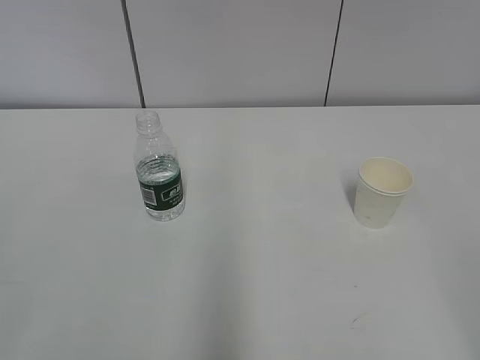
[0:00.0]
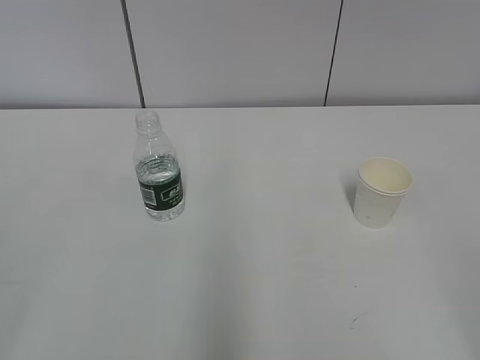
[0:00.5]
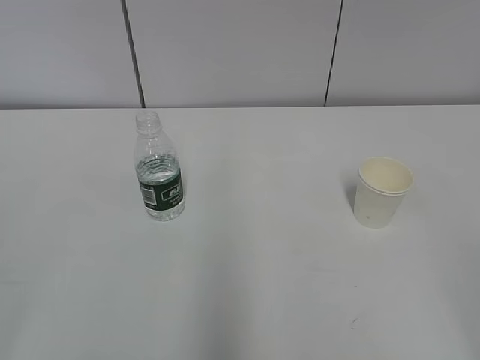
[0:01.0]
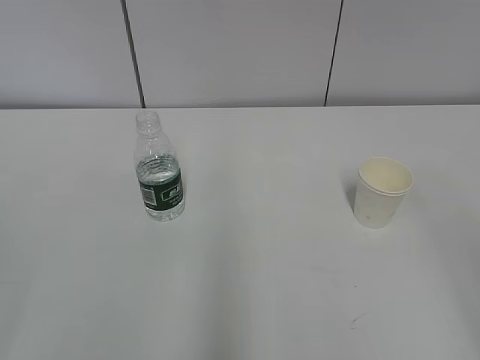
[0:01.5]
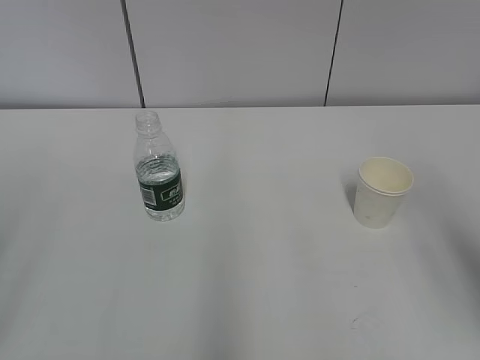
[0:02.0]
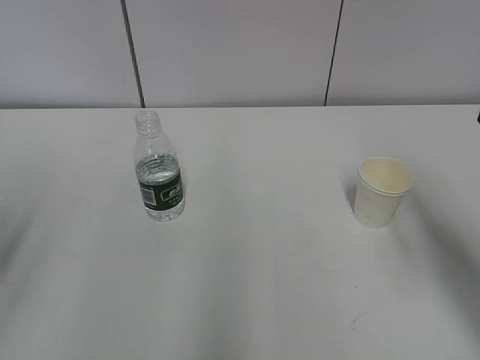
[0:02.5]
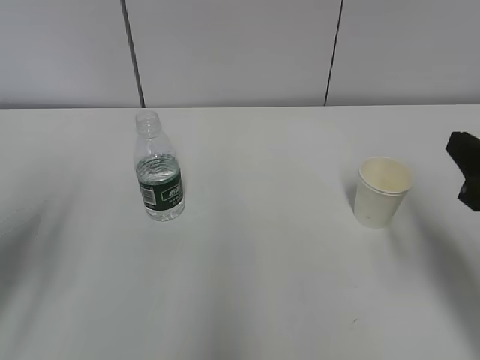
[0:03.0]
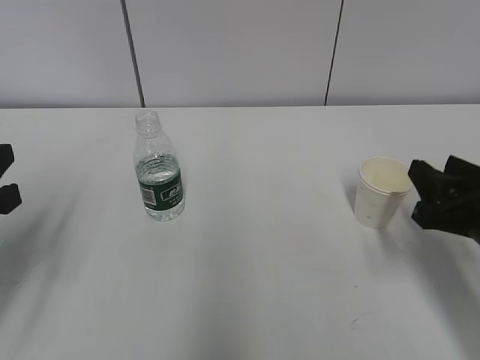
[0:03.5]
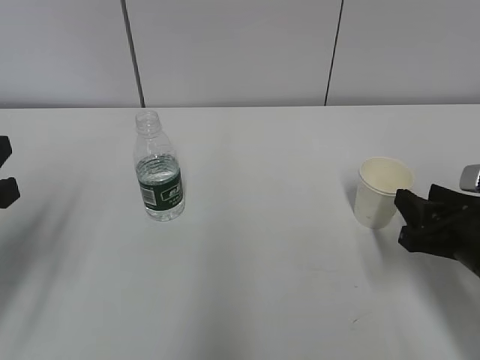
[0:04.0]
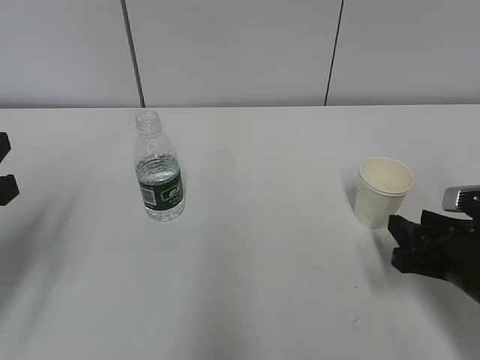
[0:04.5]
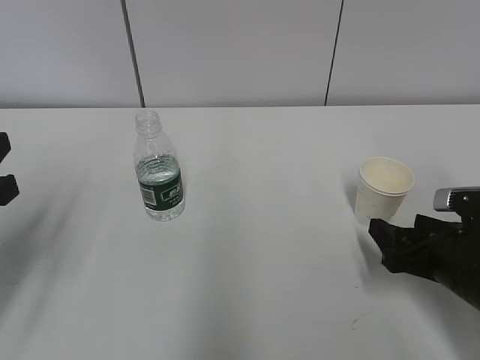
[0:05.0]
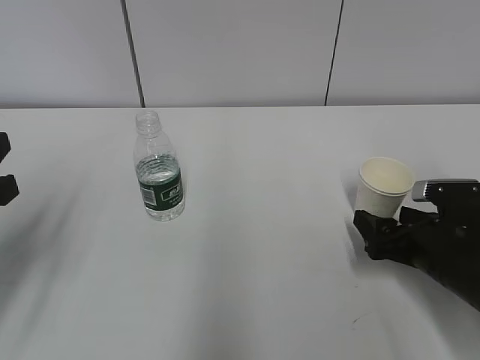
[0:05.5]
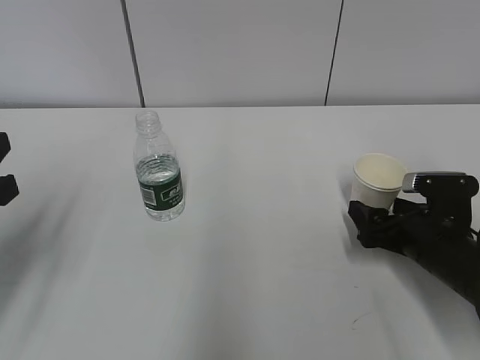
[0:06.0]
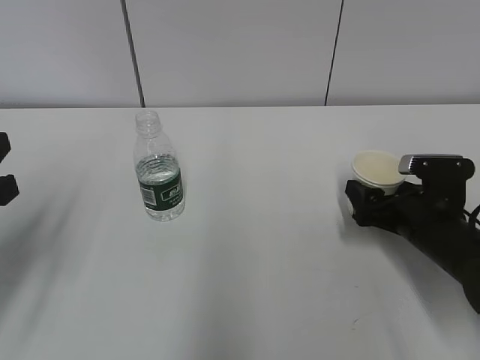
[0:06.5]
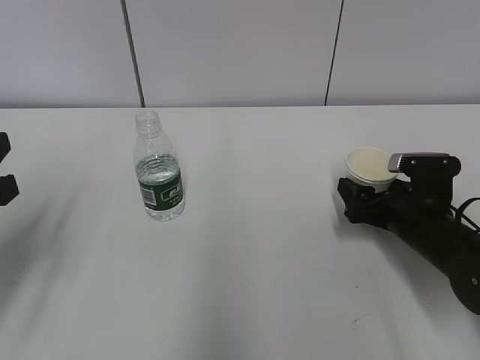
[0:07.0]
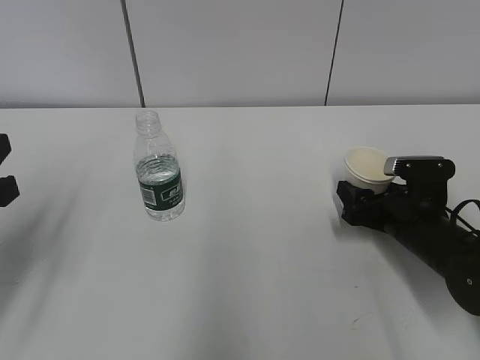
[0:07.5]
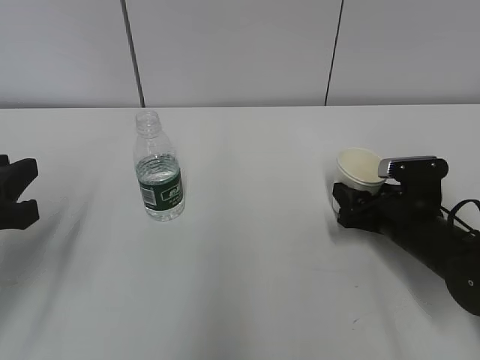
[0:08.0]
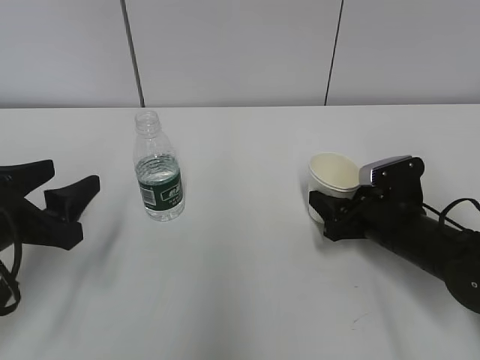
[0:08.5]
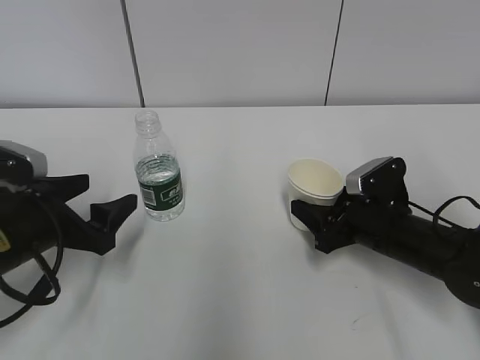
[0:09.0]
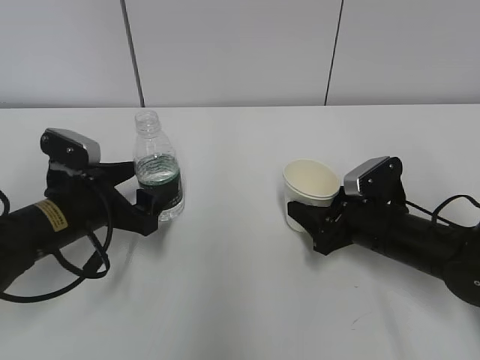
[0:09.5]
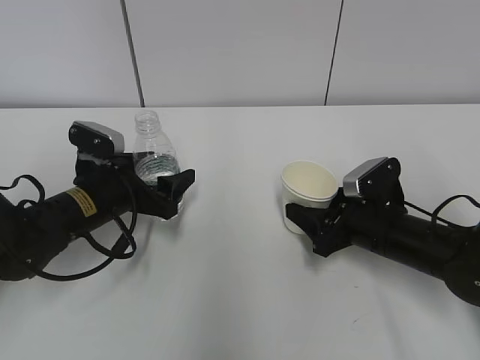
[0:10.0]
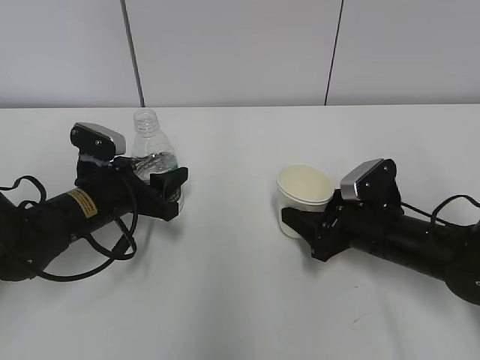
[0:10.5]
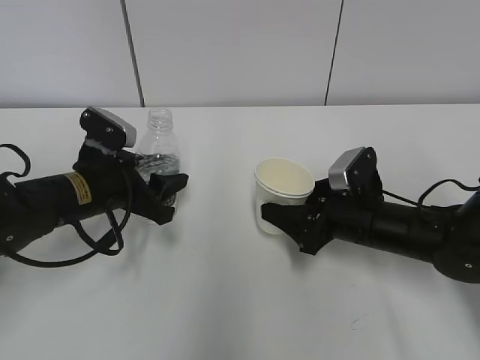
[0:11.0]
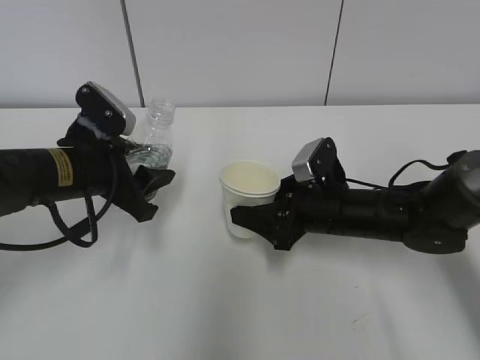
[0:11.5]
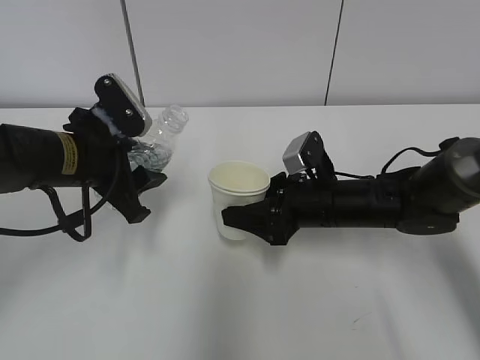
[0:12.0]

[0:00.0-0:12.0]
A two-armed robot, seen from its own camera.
Step, 0:00.0 to 0:08.5: Grab the paper cup with the right hand.
0:02.0 to 0:04.0: The right gripper is displaced downward and forward by about 25 cm. Meanwhile the left gripper heads forward and downward, covering roughly 20 cm.
0:04.0 to 0:06.0: The right gripper moves downward and forward, some 10 cm, and opens.
0:06.0 to 0:08.0: The right gripper closes.
0:08.0 to 0:10.0: The left gripper shifts about 20 cm forward, downward and to the right, and opens up.
0:10.0 to 0:12.0: The right gripper is displaced to the left by roughly 5 cm. Meanwhile the left gripper heads upward, covering approximately 10 cm, and closes.

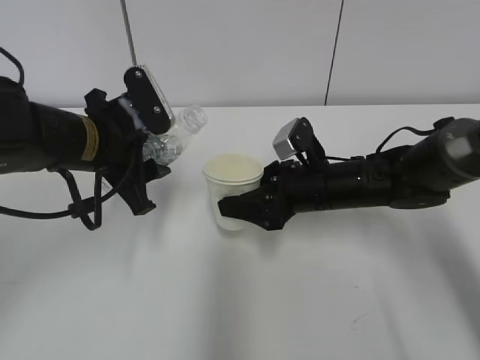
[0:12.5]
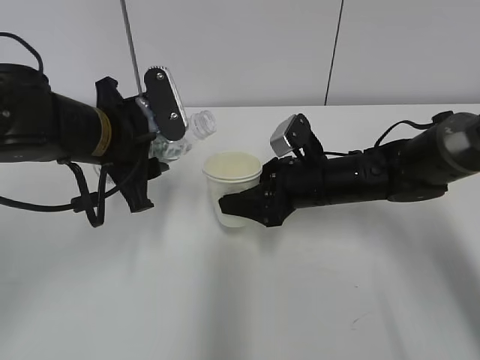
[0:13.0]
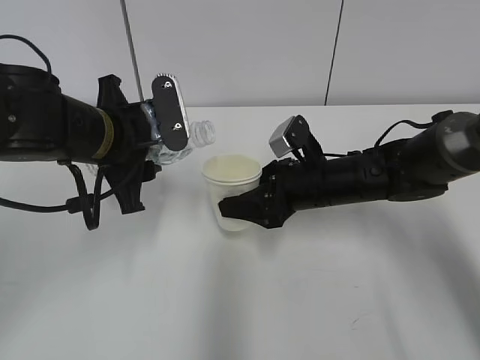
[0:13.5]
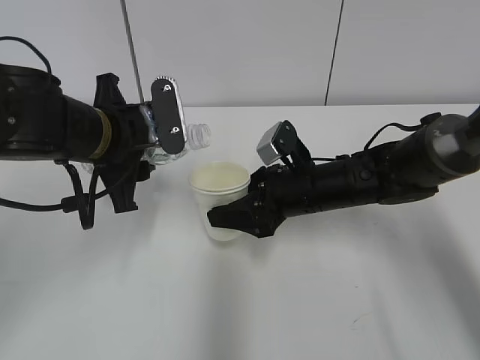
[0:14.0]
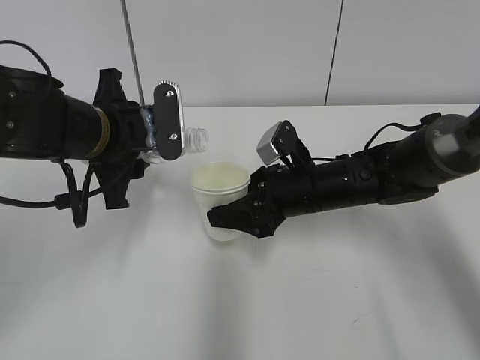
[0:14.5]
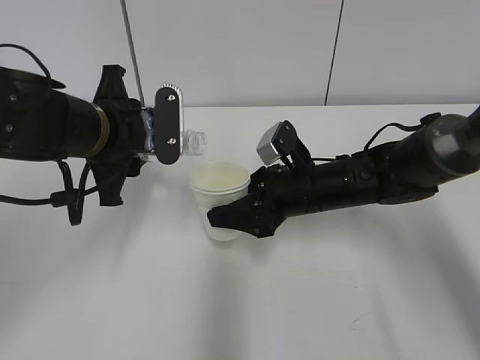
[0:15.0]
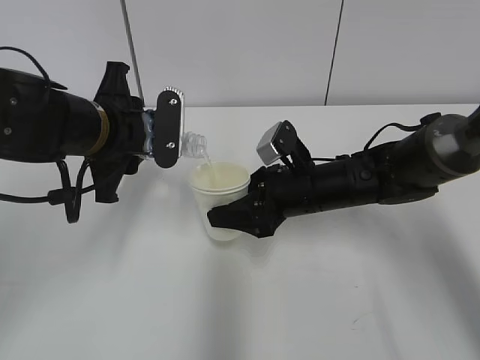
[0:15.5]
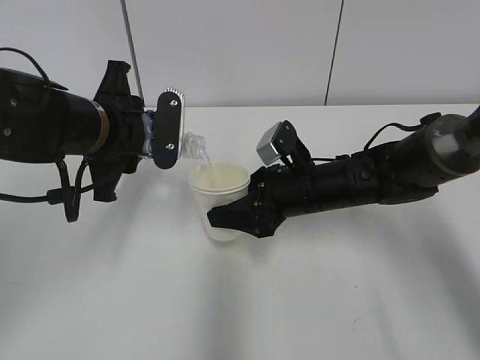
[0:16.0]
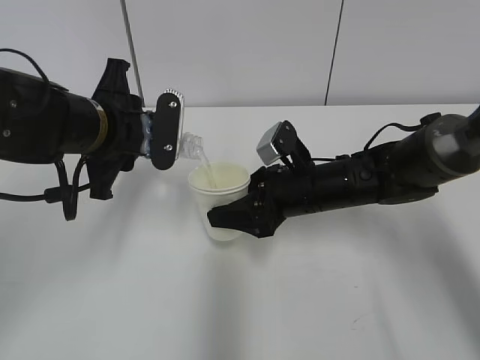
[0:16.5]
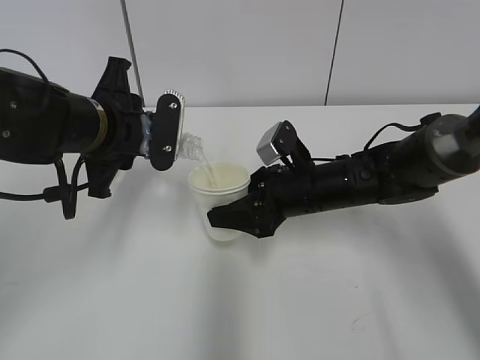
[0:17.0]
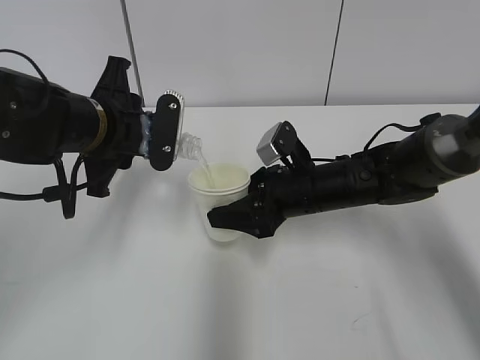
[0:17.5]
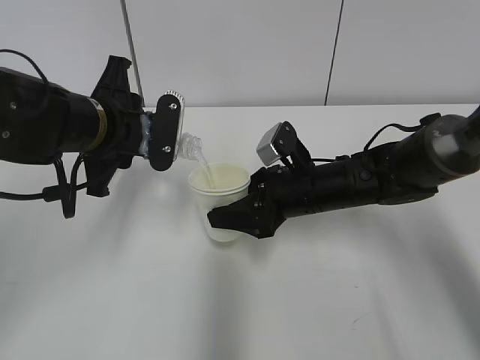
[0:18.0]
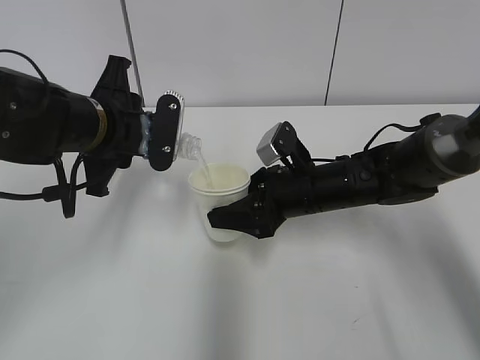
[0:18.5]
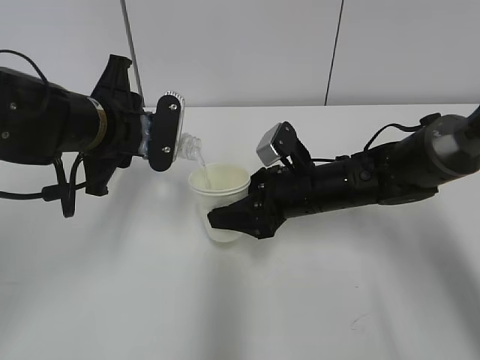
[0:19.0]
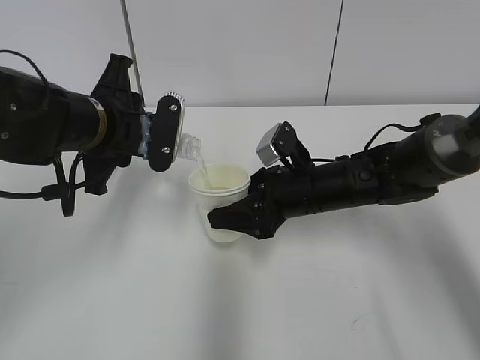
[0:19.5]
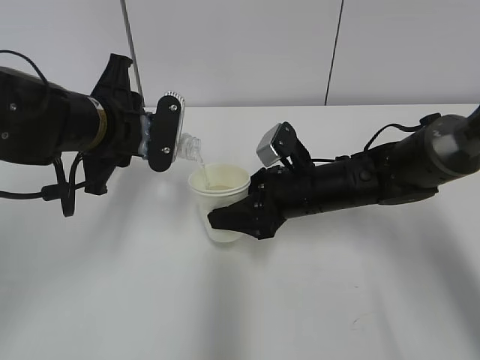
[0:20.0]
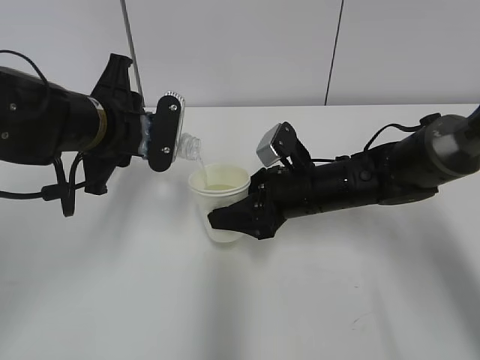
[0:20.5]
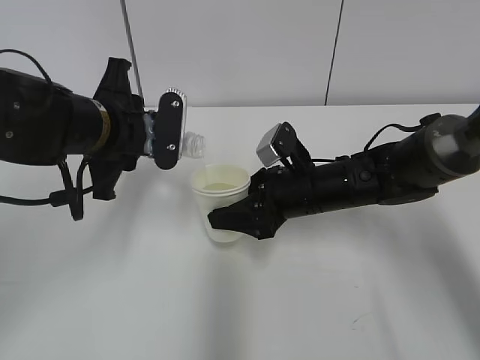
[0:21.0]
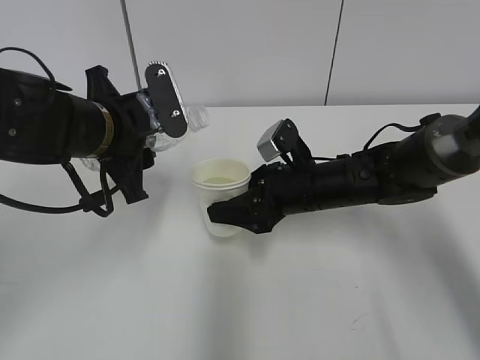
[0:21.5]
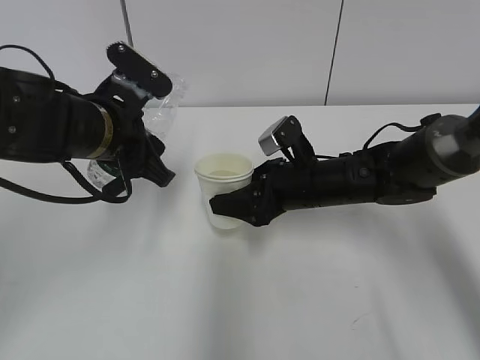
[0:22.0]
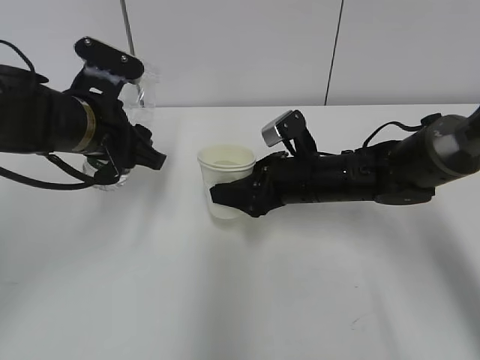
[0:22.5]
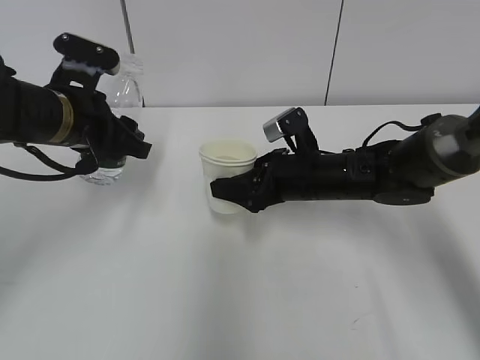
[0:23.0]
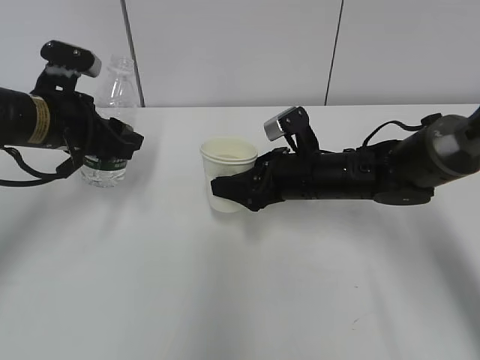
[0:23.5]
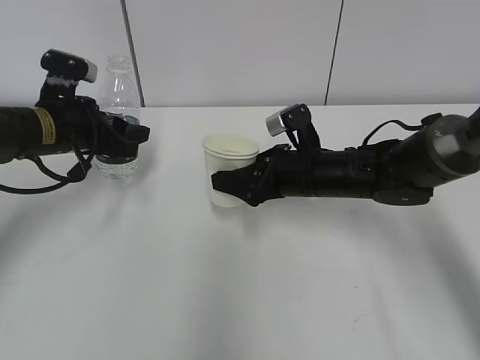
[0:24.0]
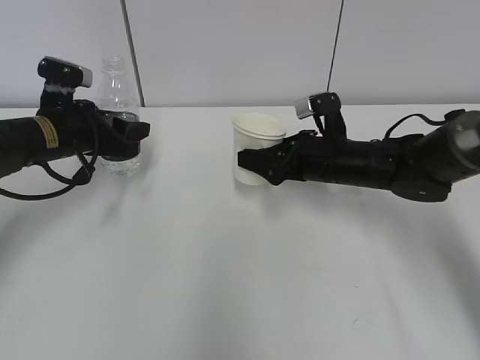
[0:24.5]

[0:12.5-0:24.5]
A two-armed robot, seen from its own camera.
Step, 0:13.0 to 0:17.5: Fill water with the right hand.
Step, 0:13.0 to 0:17.5: Pour water with the left hand.
0:14.5 to 0:16.5: There are only small adjustments of the grippers.
0:16.5 to 0:20.5: Neither gripper changes place.
0:22.5 to 0:24.5: The left gripper moves to the left, downward and forward, some 10 cm.

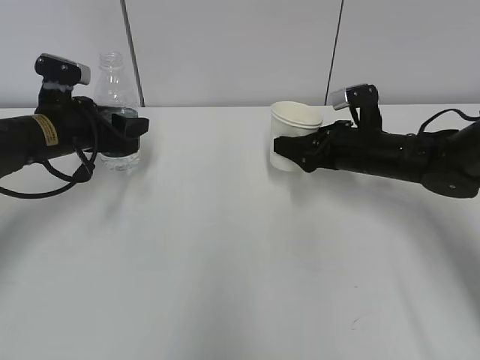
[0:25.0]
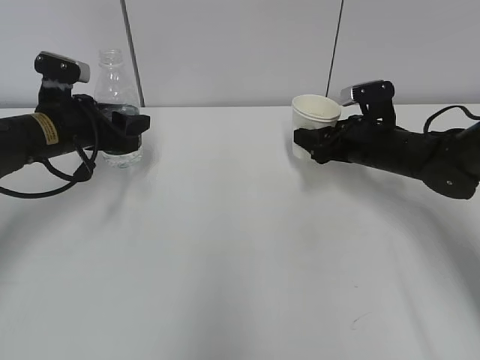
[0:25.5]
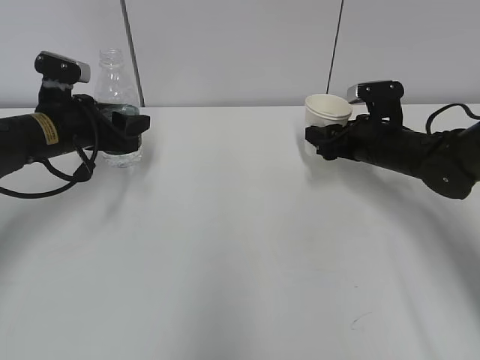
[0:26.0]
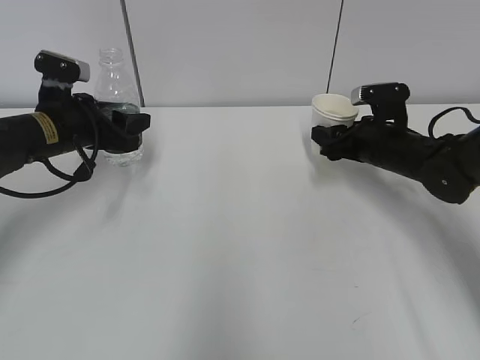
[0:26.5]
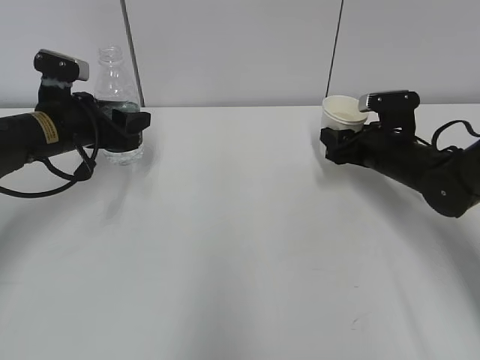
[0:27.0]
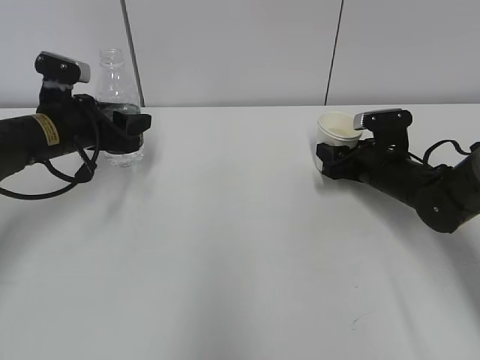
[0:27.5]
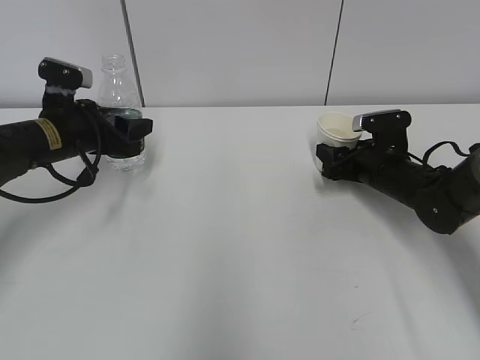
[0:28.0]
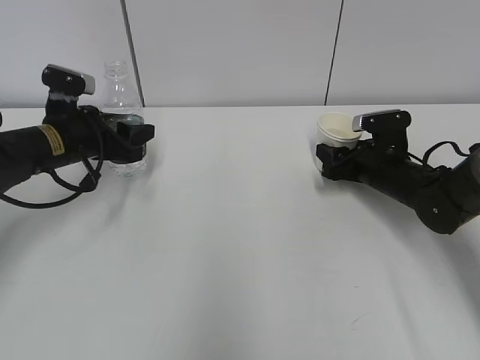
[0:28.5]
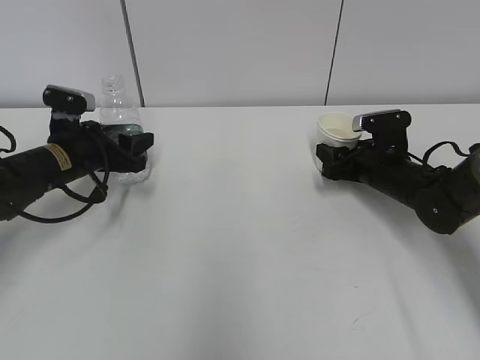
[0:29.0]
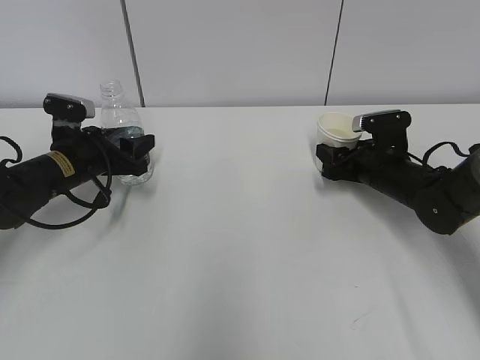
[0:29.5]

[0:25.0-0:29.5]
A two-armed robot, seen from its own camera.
Step, 0:27.0 to 0:28.0: Place the water bottle with the left hand.
0:27.0 to 0:29.5: The left gripper shifts approximately 5 cm downward.
